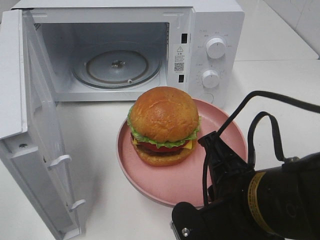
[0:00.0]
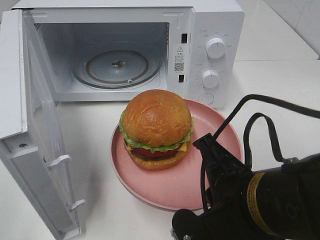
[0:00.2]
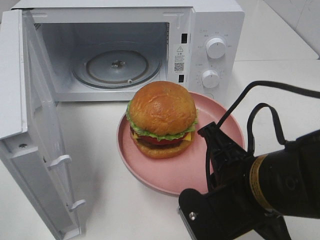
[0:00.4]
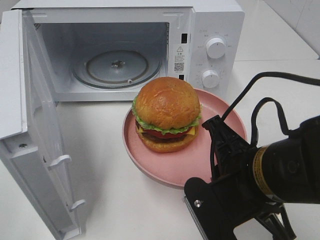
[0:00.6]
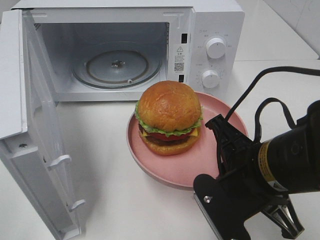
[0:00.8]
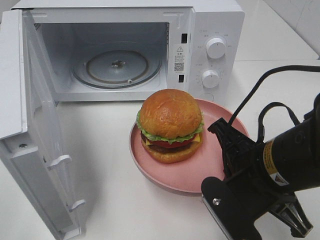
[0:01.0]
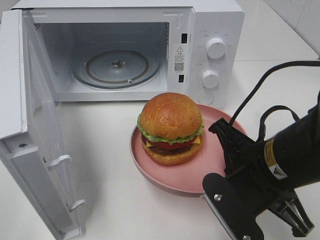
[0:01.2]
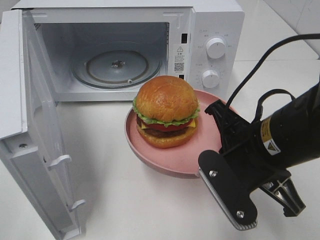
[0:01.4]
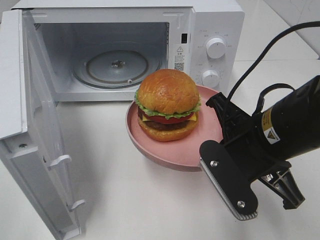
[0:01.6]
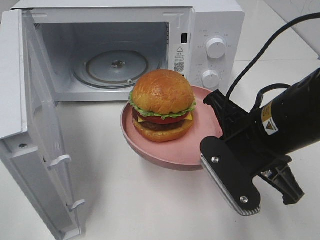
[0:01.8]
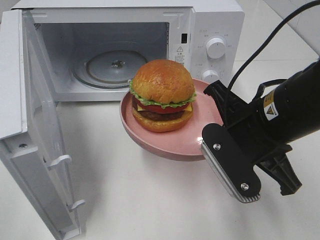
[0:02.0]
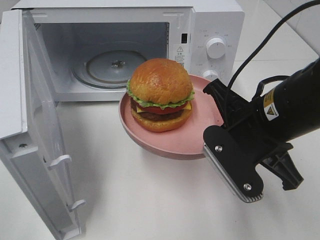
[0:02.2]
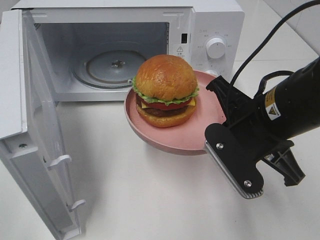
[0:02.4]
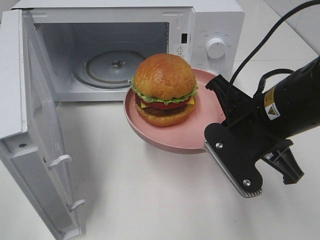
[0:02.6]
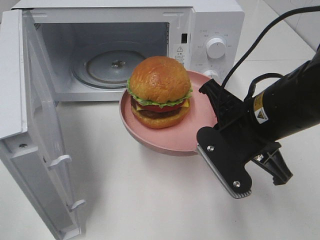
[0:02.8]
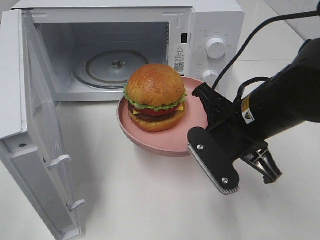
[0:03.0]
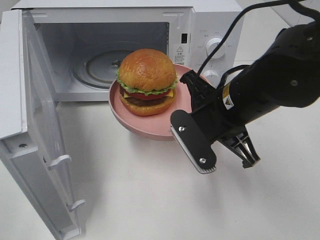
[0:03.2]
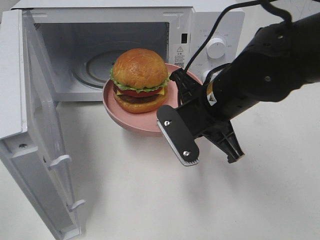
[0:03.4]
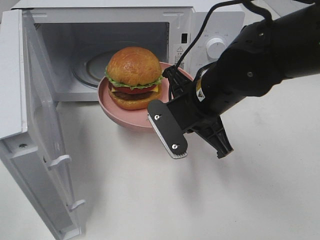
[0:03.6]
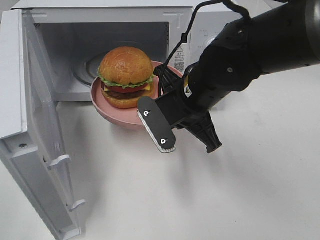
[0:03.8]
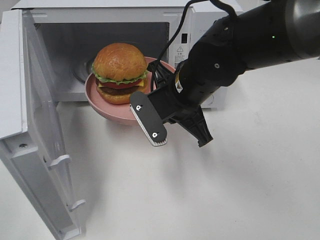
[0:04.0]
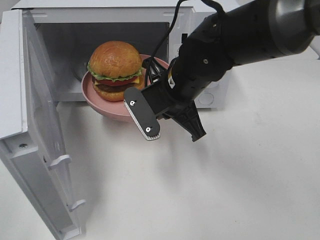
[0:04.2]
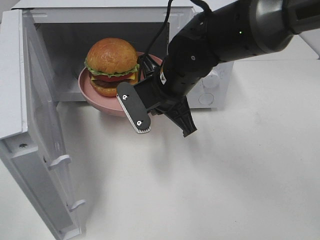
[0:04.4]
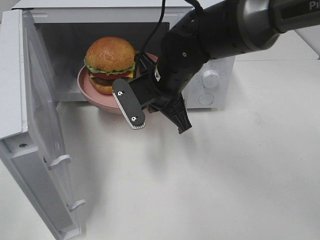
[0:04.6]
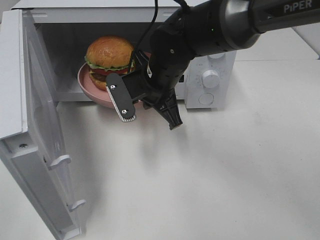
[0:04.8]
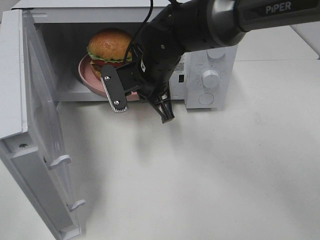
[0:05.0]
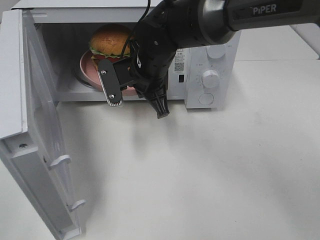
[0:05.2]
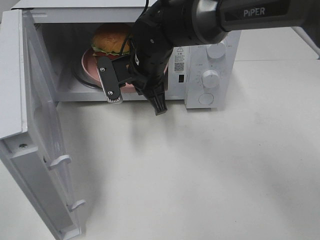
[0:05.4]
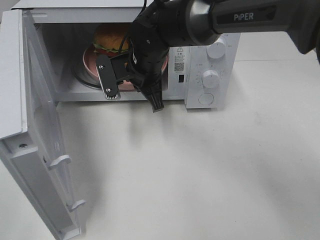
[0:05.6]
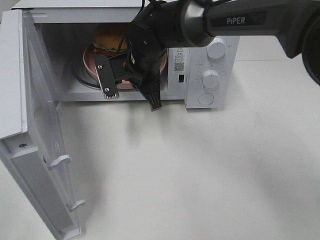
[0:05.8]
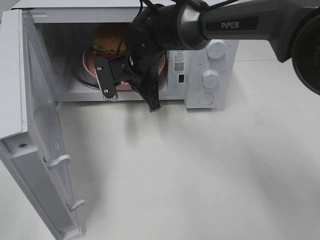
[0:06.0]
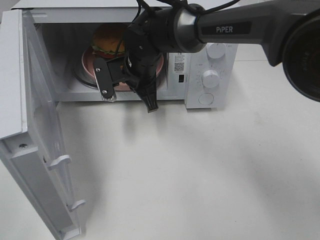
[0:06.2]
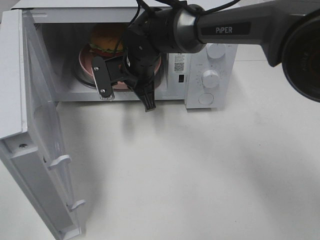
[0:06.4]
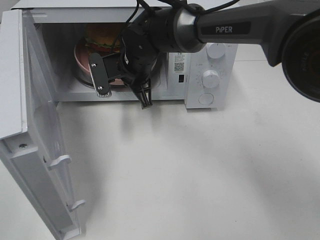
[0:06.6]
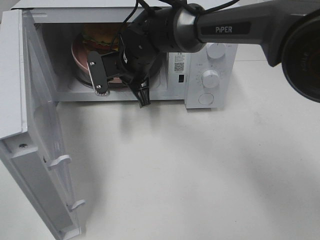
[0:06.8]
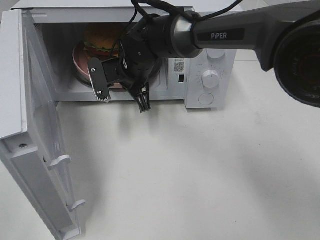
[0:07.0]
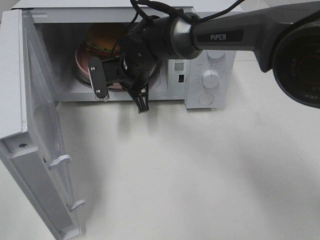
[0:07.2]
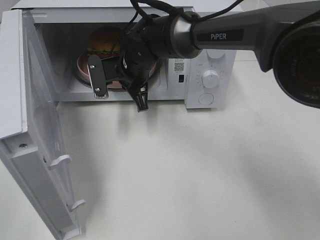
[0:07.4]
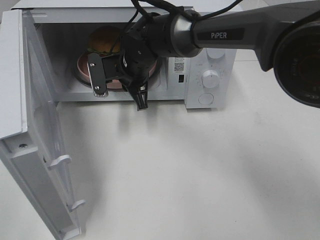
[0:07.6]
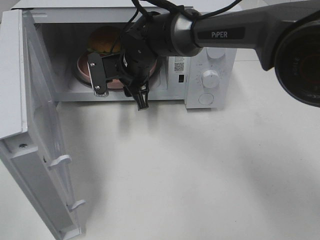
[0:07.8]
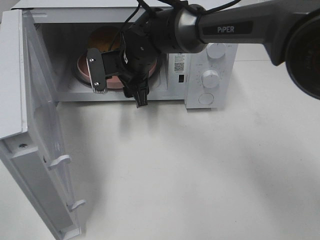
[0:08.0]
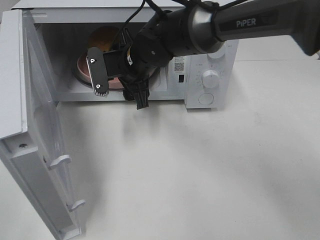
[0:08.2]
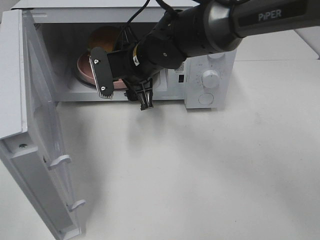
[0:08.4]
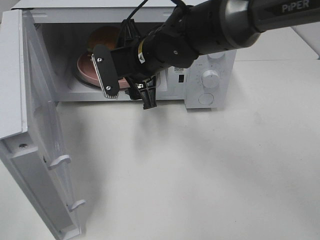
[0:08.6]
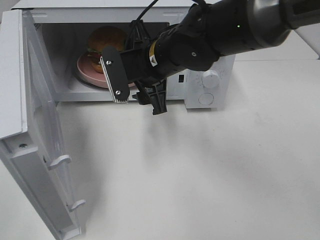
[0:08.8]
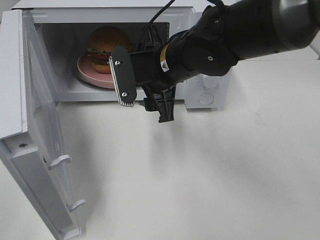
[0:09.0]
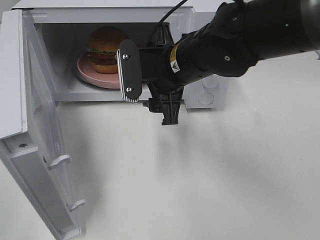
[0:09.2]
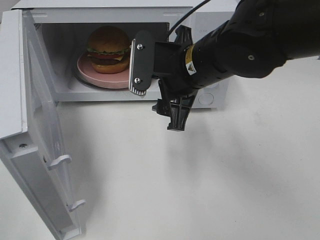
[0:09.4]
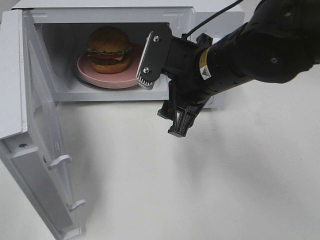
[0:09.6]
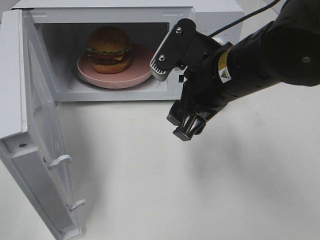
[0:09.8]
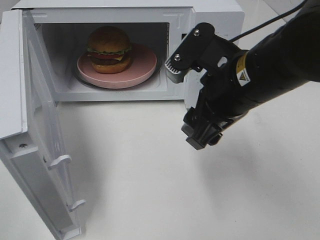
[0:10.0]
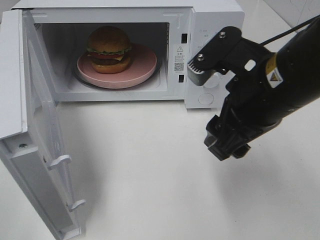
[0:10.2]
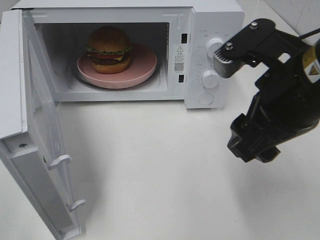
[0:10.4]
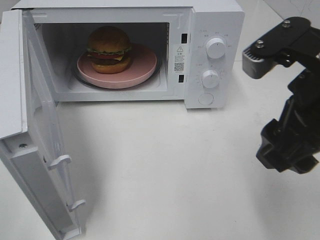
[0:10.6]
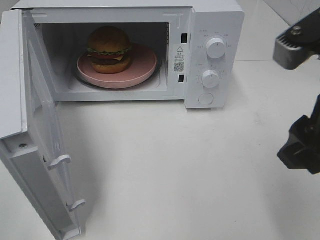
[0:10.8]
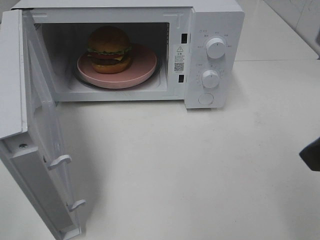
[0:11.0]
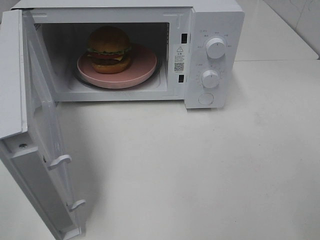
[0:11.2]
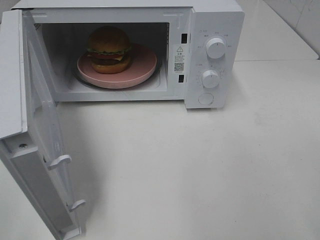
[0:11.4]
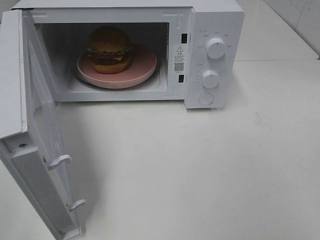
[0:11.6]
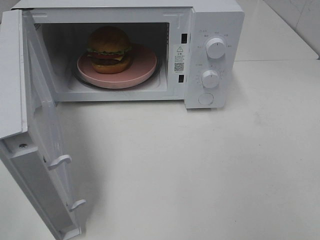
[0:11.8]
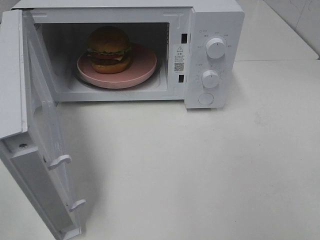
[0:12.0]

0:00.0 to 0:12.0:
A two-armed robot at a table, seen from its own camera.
Task of the whole recording: Heat the burger.
Step, 0:00.0 to 0:07.6: Right hand: place the plate in the microwave.
0:00.0 to 0:01.6: The right gripper goes some 10 cm forward.
0:03.0 to 0:04.4: The right gripper goes approximately 15 cm forward and to the left.
0:04.4 to 0:06.0: The right gripper shifts roughly 10 cm forward and to the left.
0:06.0 to 0:07.6: The grippers make only small movements.
0:07.6 to 0:09.0: The right gripper is displaced backward, to the right and upward by approximately 15 cm, and opens.
0:09.0 to 0:10.4: The right gripper goes approximately 20 cm backward, to the right and upward.
0:10.4 to 0:12.0: The right gripper moves backward and to the right, some 20 cm.

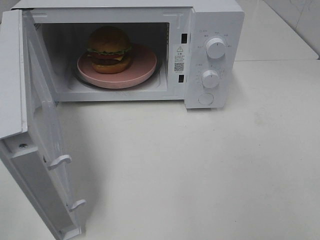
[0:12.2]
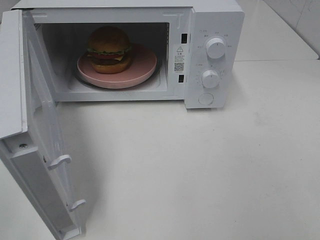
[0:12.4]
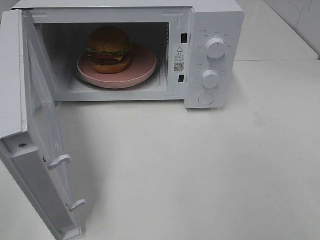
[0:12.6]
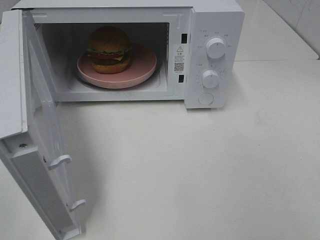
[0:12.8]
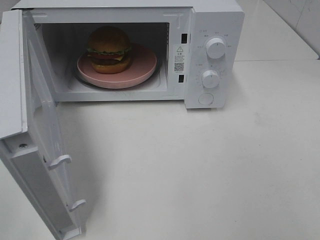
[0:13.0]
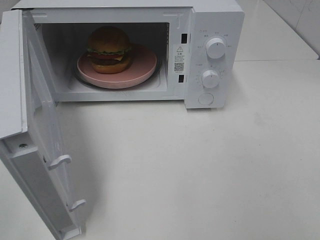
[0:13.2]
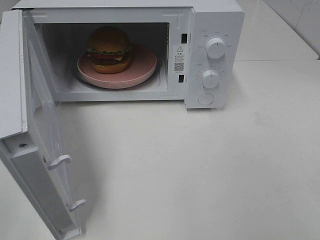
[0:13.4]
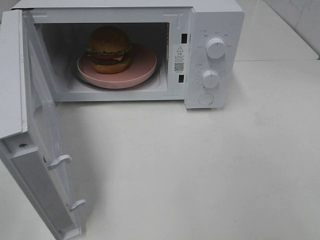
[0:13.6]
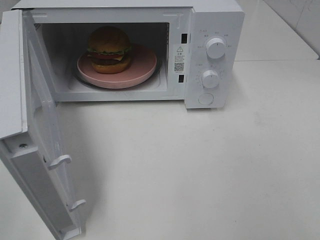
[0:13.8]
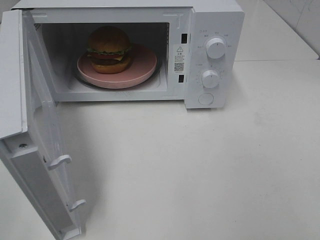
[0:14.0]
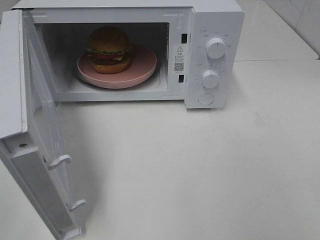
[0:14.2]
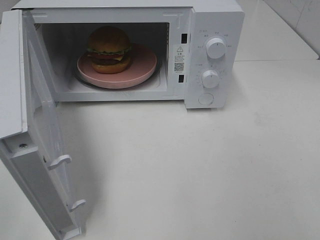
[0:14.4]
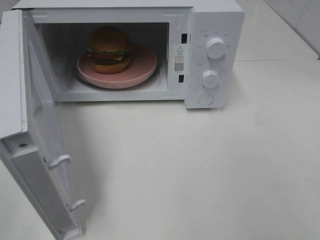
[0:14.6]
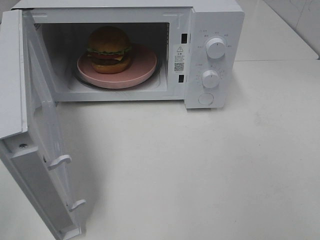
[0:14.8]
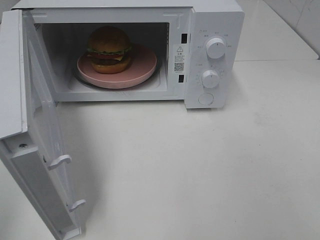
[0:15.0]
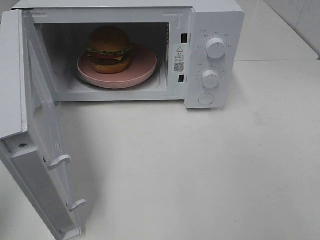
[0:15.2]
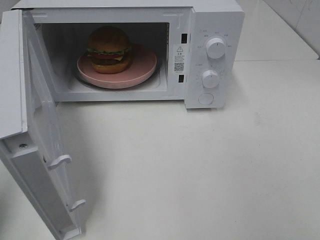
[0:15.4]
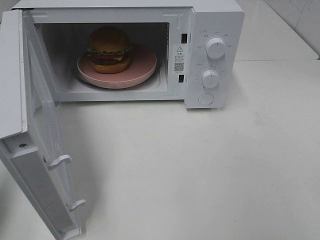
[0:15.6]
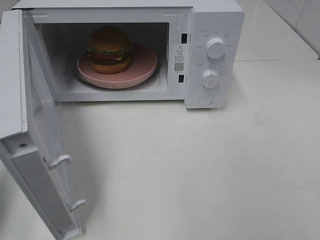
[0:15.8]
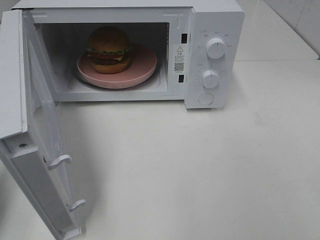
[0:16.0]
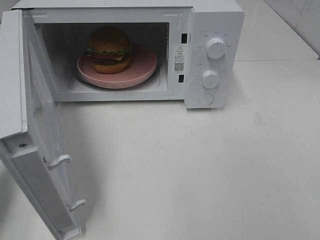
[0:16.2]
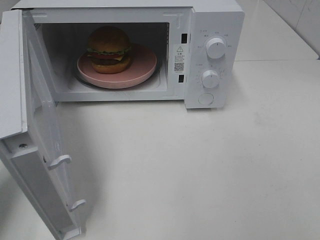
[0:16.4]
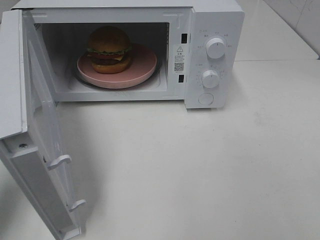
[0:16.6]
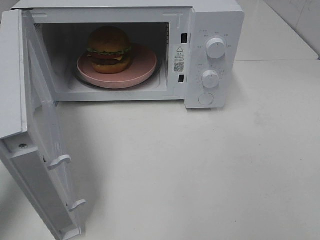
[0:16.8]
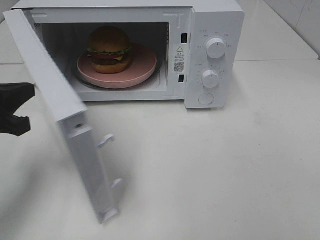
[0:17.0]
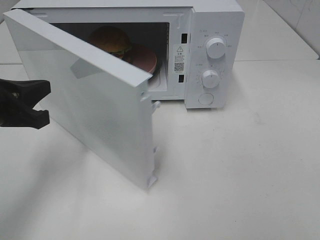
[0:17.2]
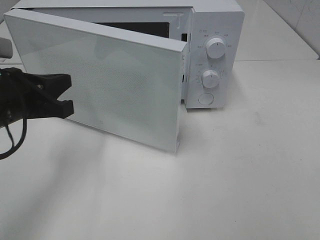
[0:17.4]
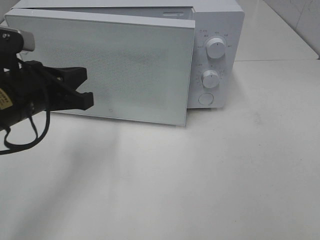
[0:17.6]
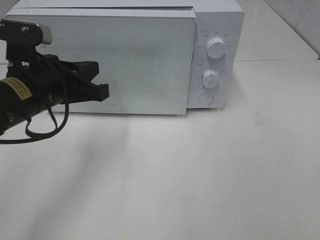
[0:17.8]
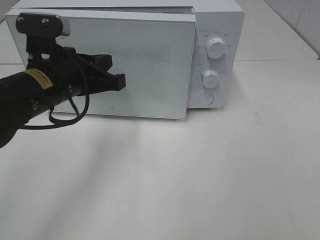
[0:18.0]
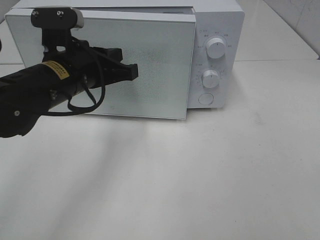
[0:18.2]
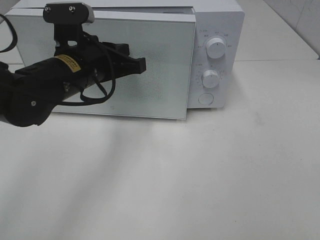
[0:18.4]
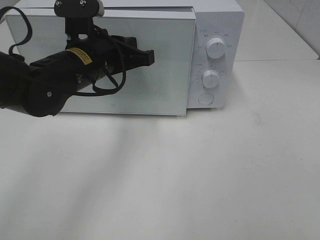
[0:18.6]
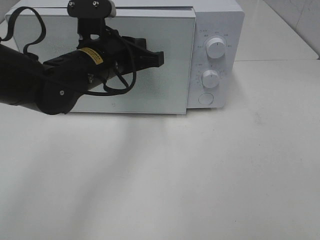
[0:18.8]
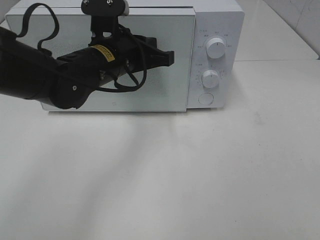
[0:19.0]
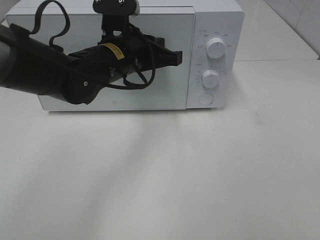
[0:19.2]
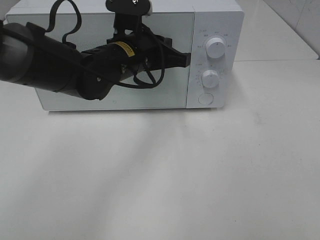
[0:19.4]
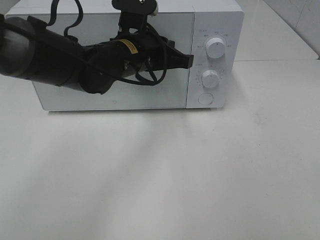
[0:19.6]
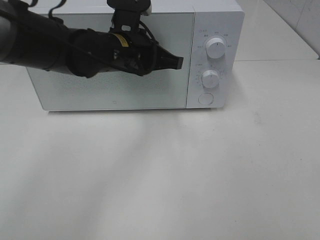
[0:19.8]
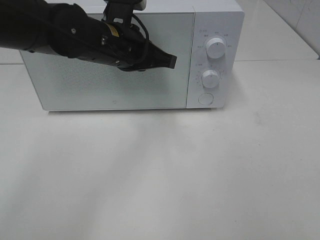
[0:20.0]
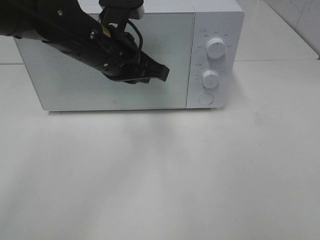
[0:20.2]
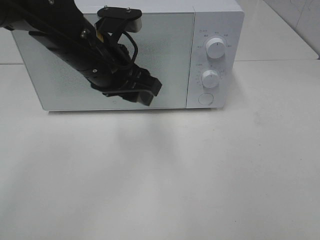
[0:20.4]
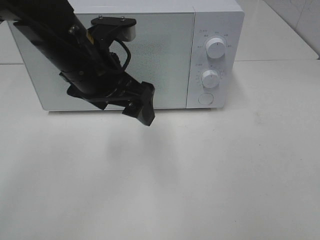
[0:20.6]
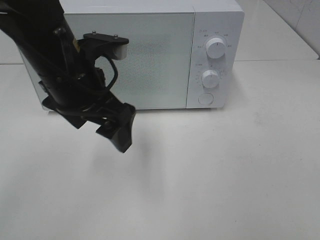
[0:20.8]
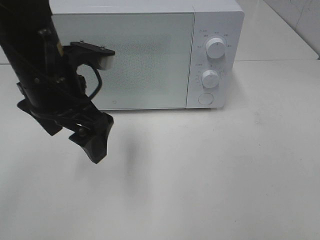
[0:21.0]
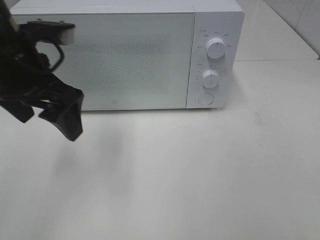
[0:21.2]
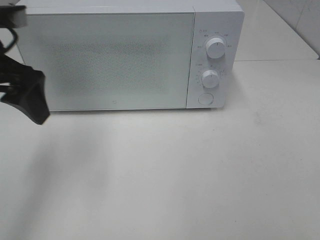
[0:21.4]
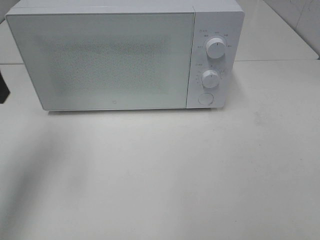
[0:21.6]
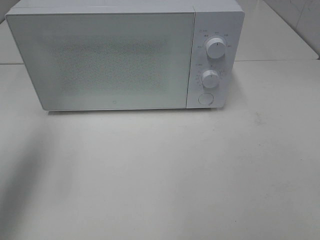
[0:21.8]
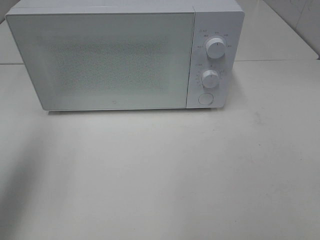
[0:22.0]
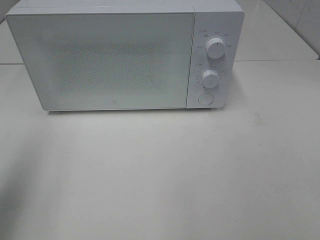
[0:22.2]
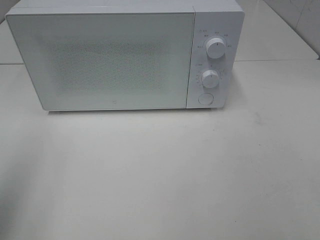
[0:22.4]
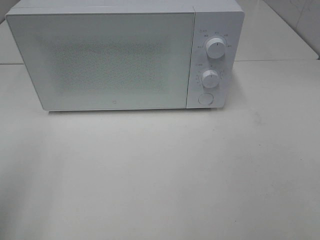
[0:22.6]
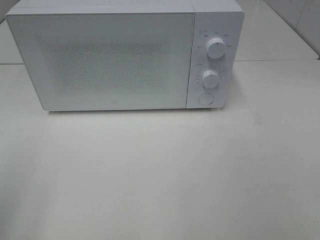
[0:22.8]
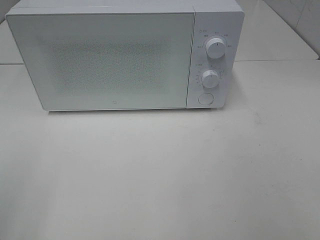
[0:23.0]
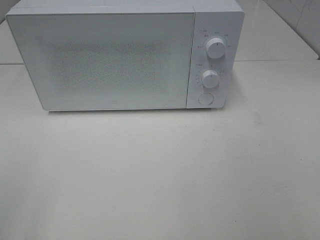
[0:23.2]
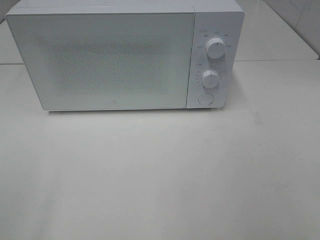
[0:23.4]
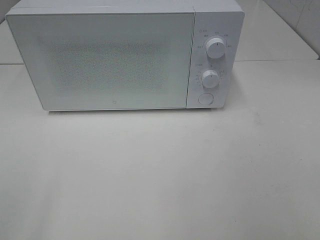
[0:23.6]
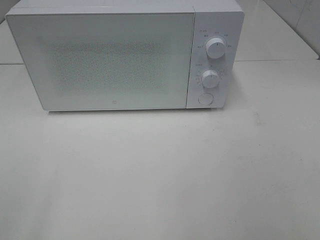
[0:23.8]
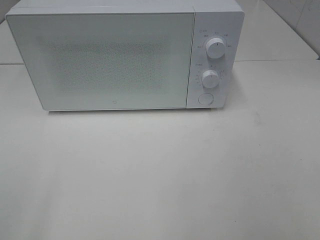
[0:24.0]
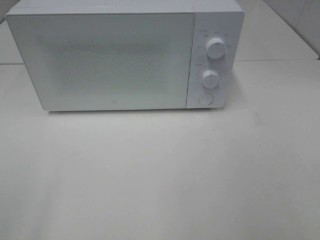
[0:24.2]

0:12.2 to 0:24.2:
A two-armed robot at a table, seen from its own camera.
Task of the whole recording: Heat the burger.
Step, 0:12.2 to 0:19.8: Left hand: close the microwave door.
0:12.2 to 0:13.8: Both grippers stay put.
0:15.2 to 0:16.6: The left gripper heads forward and downward, covering about 15 cm.
0:16.6 to 0:18.2: The left gripper heads to the right and forward, covering approximately 20 cm.
0:18.2 to 0:19.8: The left gripper shifts some 10 cm to the right and forward.
0:19.8 to 0:21.2: The left gripper travels to the left, backward and upward by roughly 15 cm, and opens.
0:21.2 to 0:22.6: The left gripper heads backward and to the left, covering roughly 20 cm.
